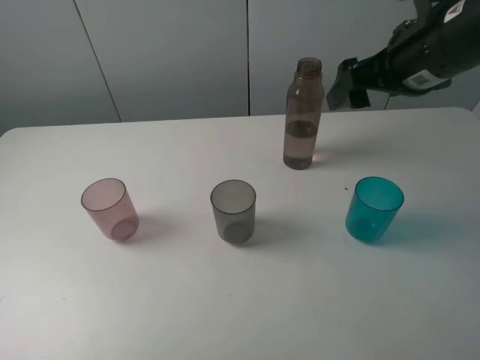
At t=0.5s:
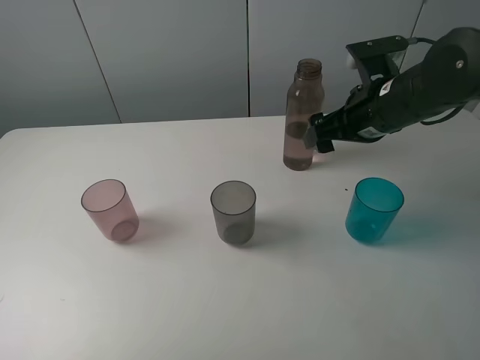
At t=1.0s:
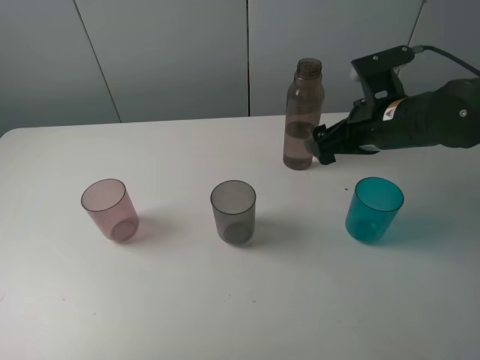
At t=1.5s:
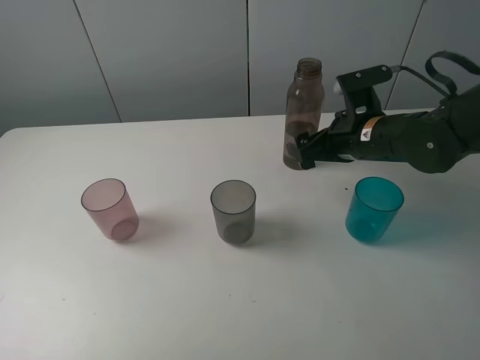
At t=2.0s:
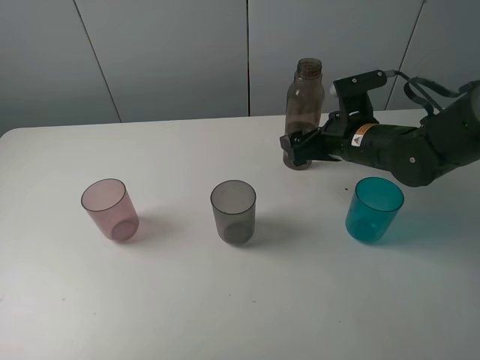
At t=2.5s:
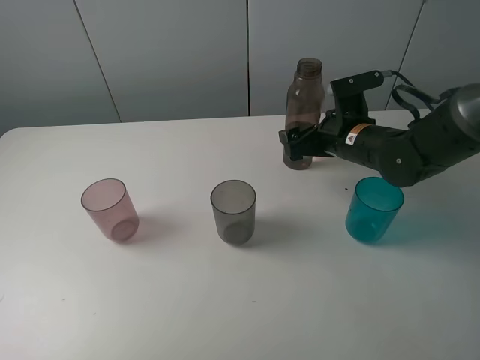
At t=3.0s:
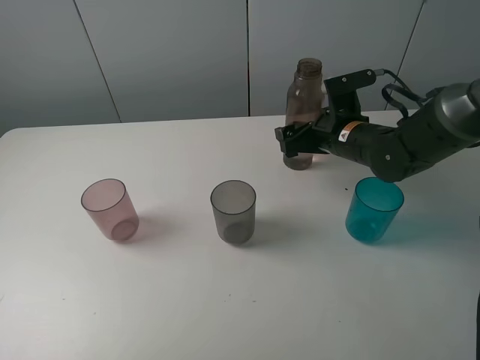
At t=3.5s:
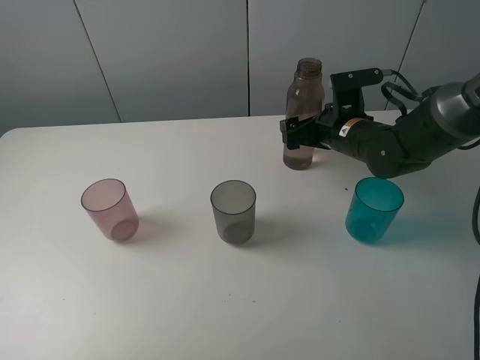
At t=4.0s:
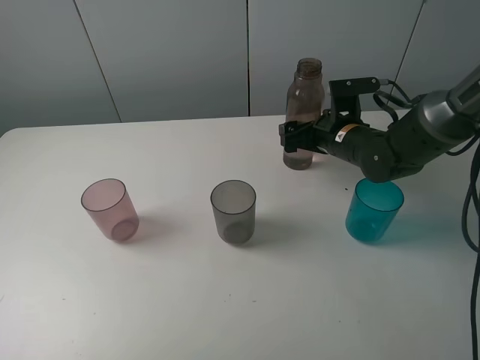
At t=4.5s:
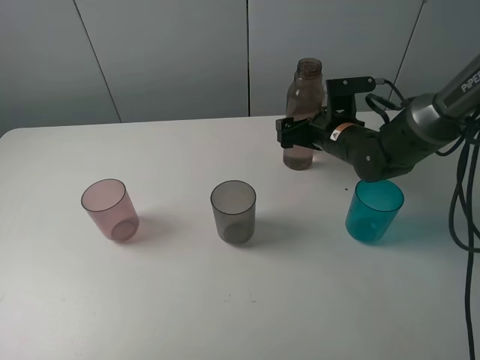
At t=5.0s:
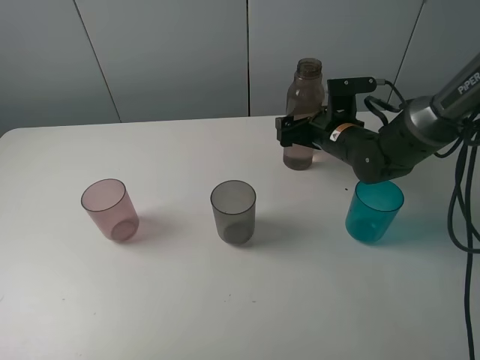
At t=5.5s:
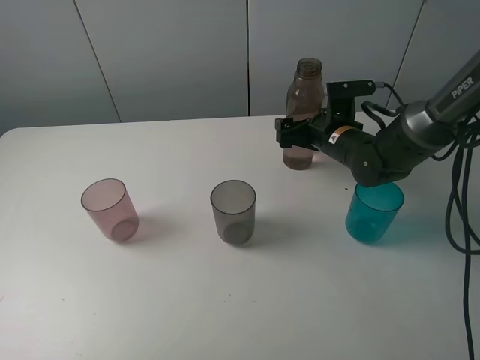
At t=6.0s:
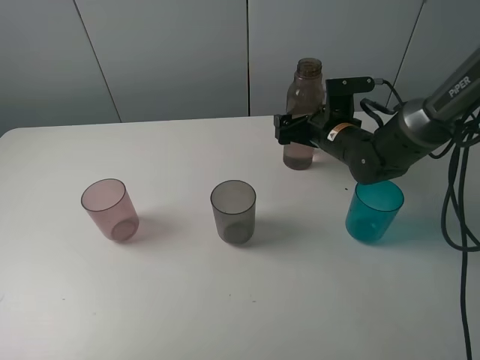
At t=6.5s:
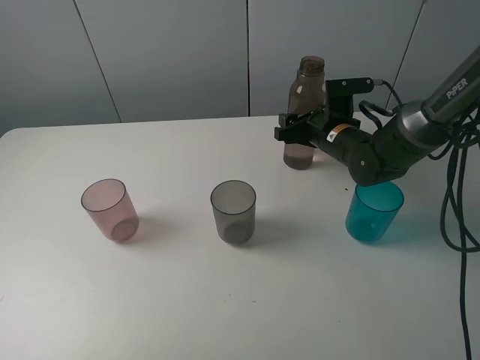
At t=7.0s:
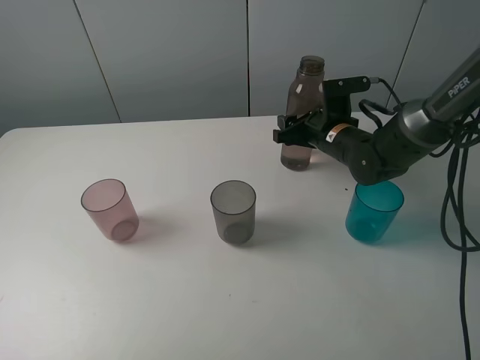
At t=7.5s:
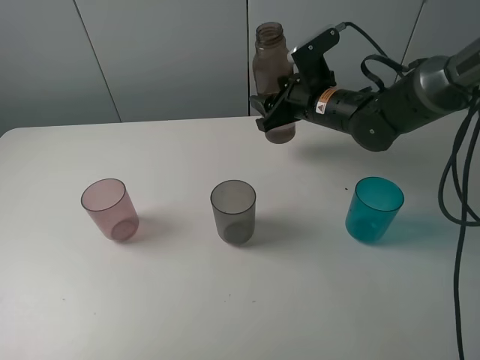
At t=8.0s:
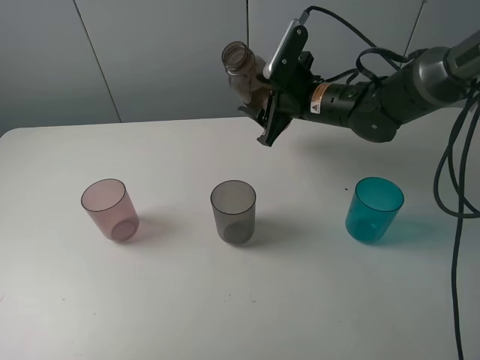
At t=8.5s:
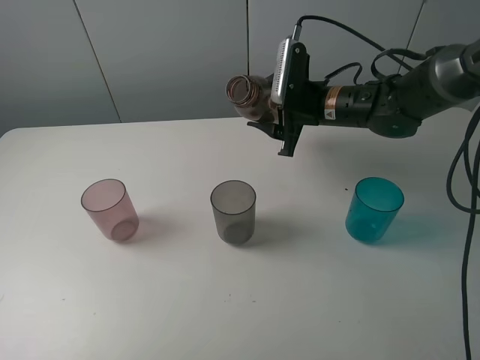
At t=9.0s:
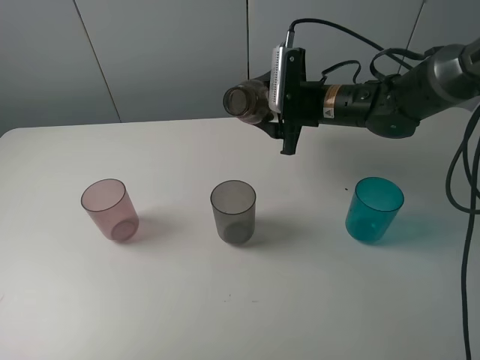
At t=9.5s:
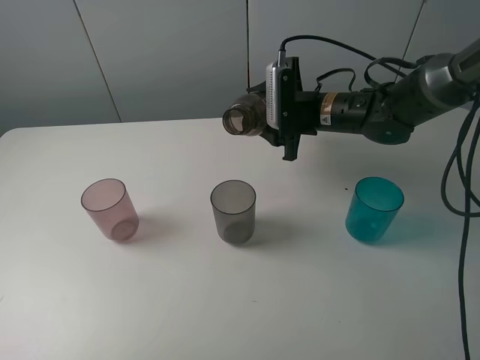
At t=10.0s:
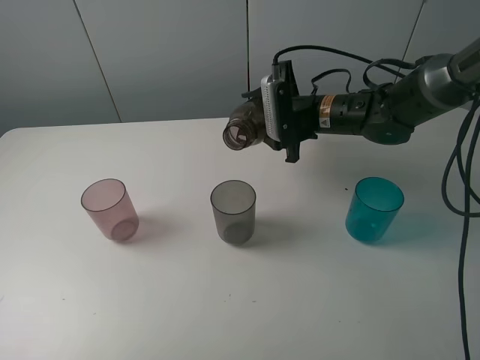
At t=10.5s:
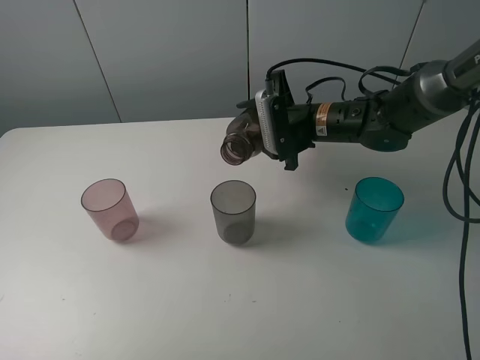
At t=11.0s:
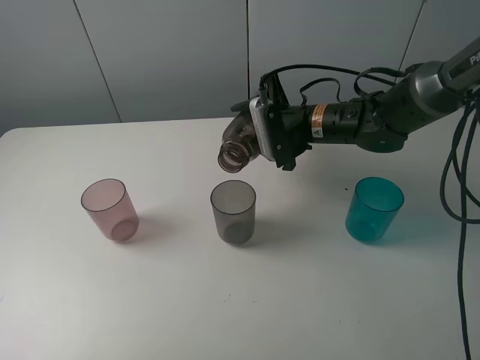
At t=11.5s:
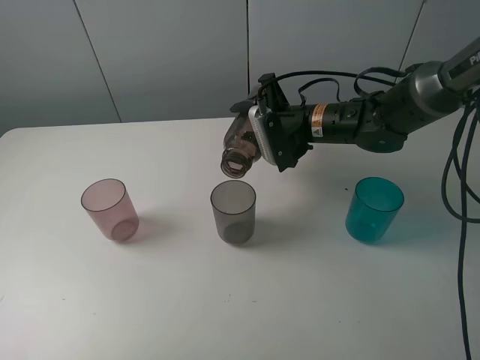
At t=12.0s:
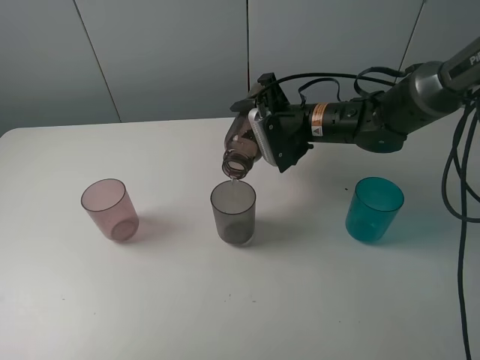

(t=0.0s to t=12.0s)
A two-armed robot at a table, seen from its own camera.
Task of the whole recording: pick up the bottle filled with water and pour water into the middle cup of the three cups.
Step, t=0.0s - t=5.0s: Grasp the brown bottle with the right gripper.
Step, t=5.5s - t=11.0s: Pour water from transparent bottle to grey cup with the right gripper.
t=0.0s - t=2.0s: The right gripper heads downward, covering some 15 cm.
t=2.0s - t=4.0s: The grippers stay close to where they were, moving slightly.
t=4.0s - t=6.0s: The grippers move only a little.
t=6.0s - t=8.0s: The right gripper goes some 5 cm upward, and closes.
t=10.0s - t=12.0s: The grippers make only small movements.

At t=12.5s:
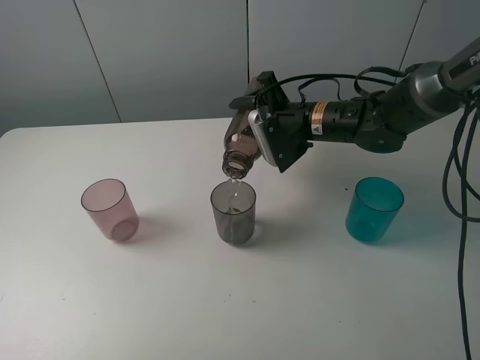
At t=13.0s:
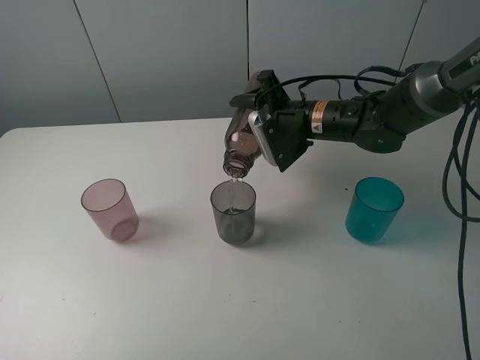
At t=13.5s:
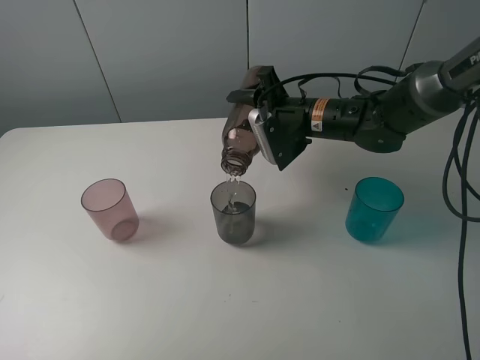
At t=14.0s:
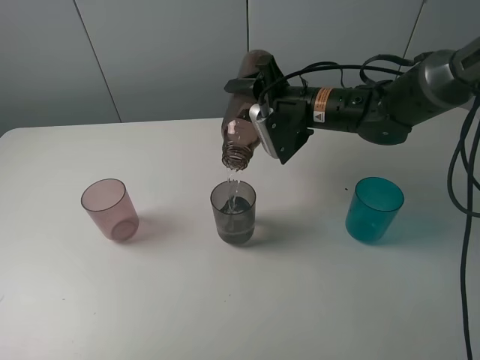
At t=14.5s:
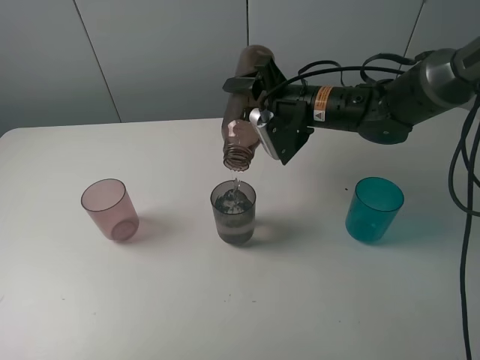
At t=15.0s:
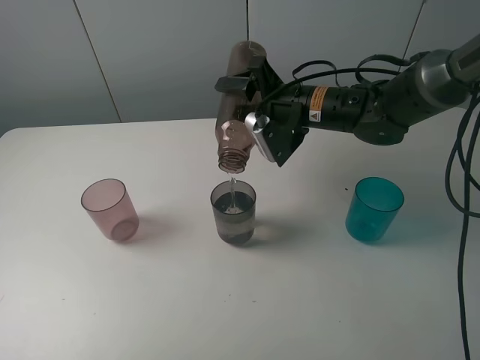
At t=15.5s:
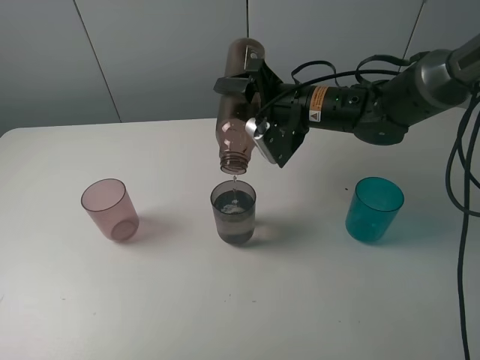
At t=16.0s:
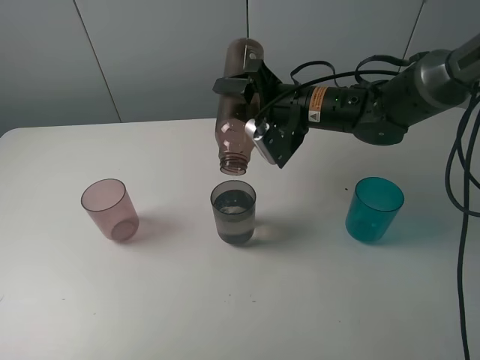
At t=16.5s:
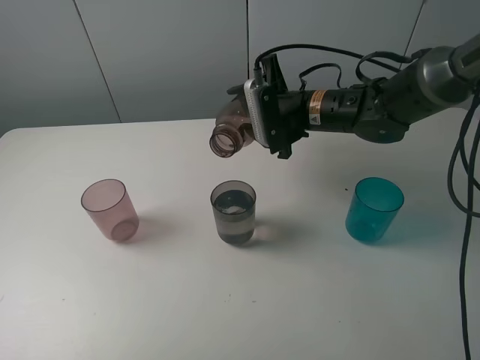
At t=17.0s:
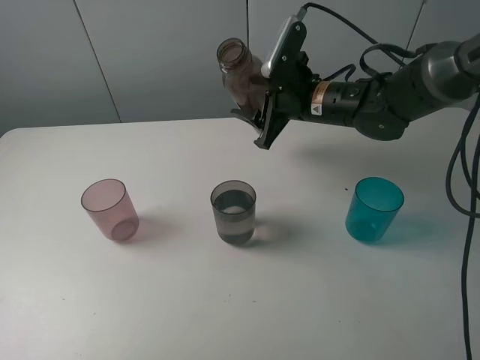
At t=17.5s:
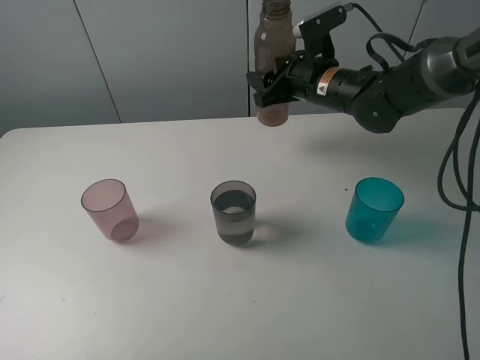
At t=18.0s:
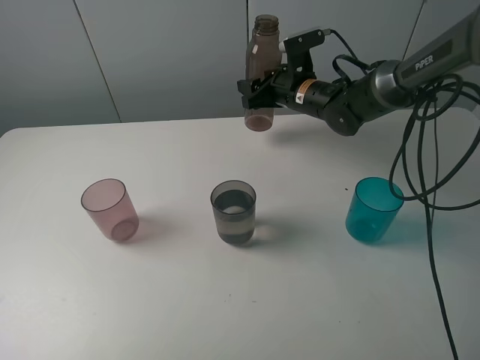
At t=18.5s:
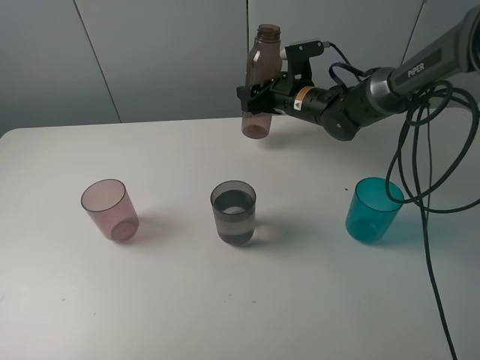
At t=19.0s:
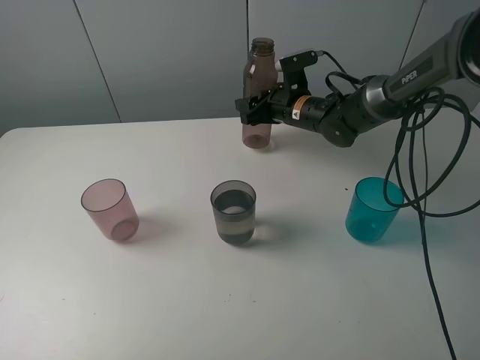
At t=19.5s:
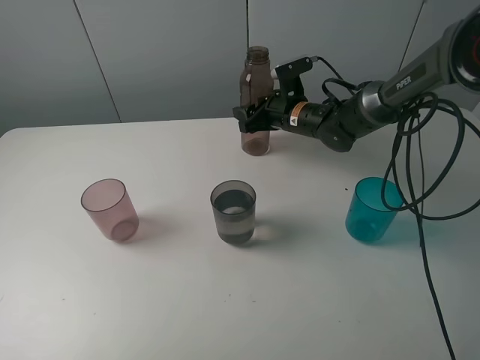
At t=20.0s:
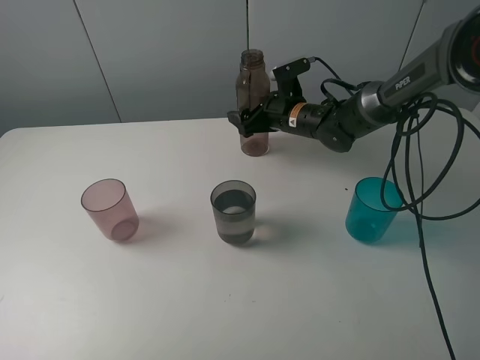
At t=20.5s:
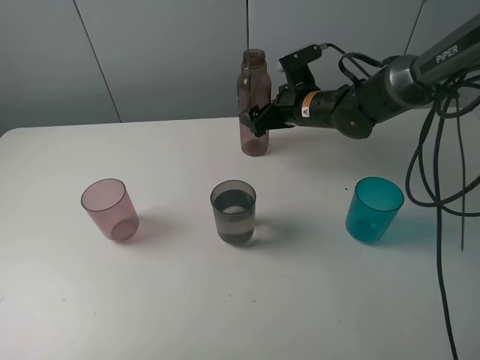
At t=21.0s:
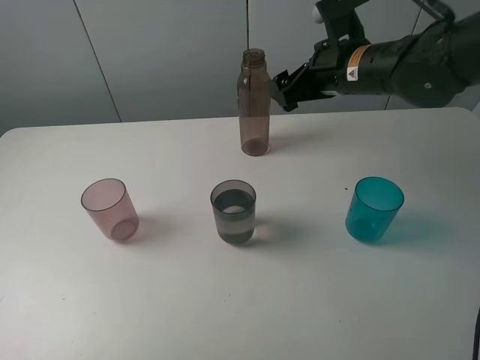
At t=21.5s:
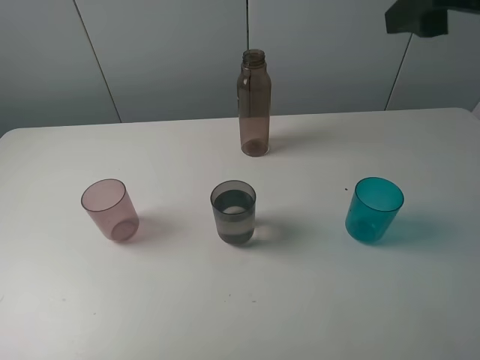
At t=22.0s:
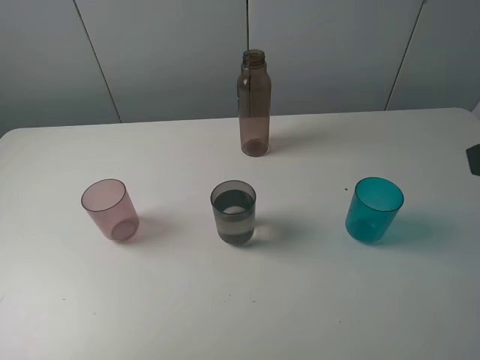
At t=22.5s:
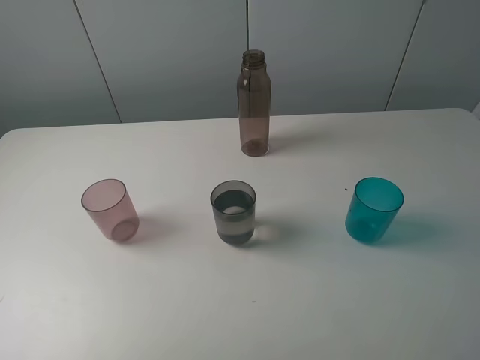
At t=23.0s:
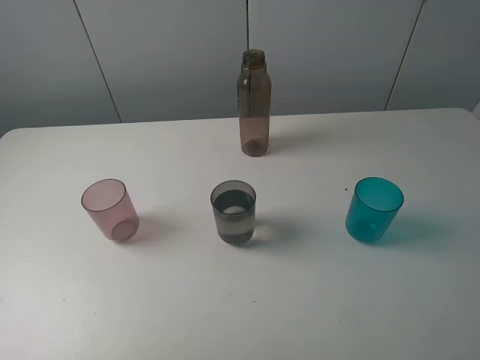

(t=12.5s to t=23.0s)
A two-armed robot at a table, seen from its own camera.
Task of the whole recording: pick up the bottle filled with water and pour water into the middle cup of the three cups.
Step, t=12.5s - t=20.5s: Place the brown bottle with the right gripper.
t=12.5s - t=14.5s: The grippers stay close to where they were, moving slightly.
t=16.5s - t=19.0s: The right gripper goes about 10 cm forward and downward.
t=19.0s - t=21.0s: The right gripper moves upward and backward, some 20 cm, and opens.
t=21.0s - t=23.0s: The right gripper goes about 35 cm backward and to the right.

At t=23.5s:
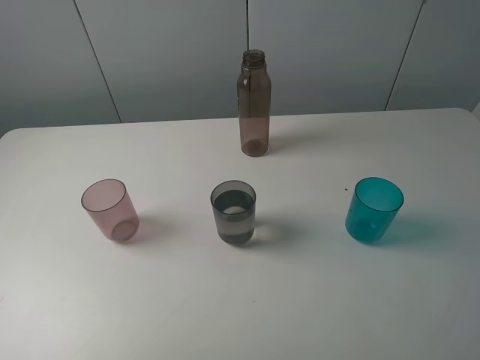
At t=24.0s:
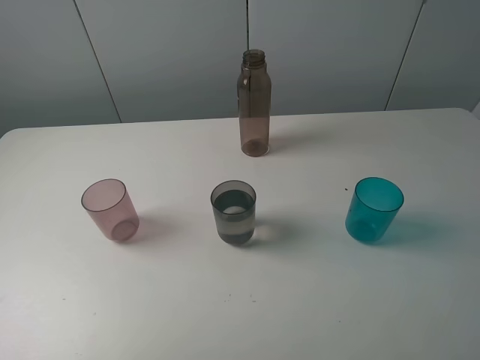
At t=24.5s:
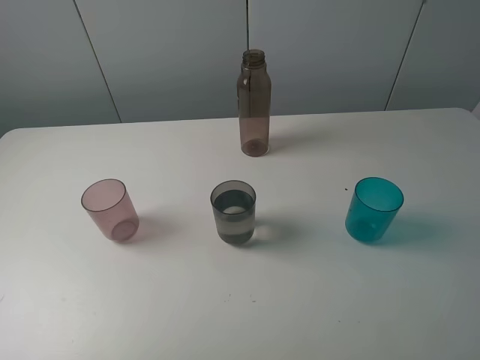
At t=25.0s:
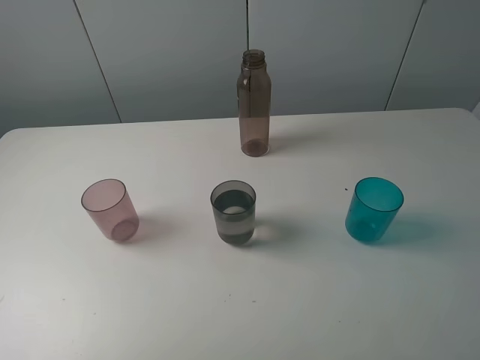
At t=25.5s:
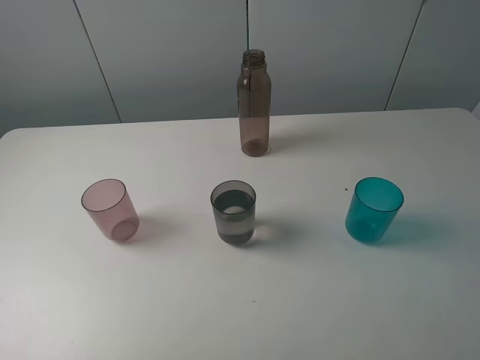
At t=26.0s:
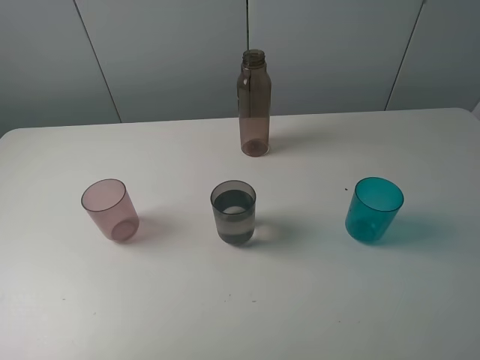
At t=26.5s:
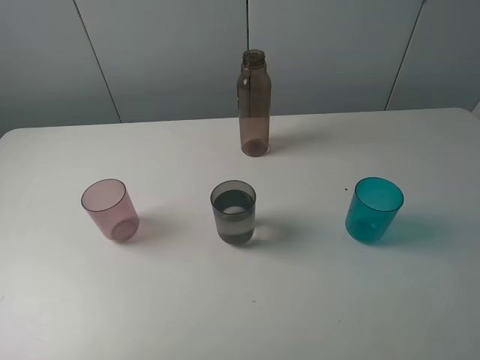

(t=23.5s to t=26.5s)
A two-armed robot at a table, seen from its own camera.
Task of the whole recording: pick up the bottle filled with water and pour water into the middle cup of the three cups.
t=25.0s - t=26.5s: Neither gripper changes place.
